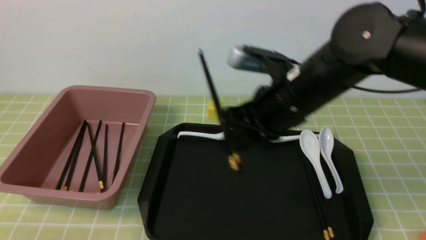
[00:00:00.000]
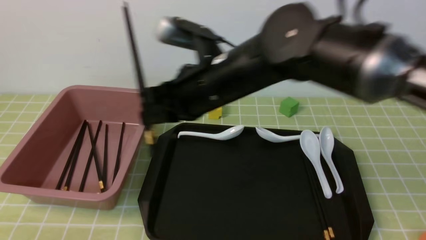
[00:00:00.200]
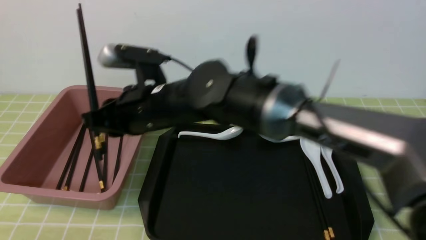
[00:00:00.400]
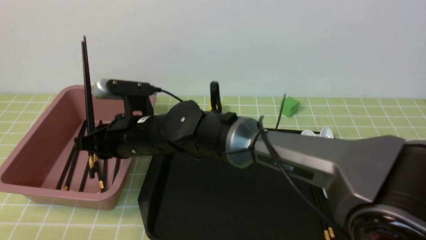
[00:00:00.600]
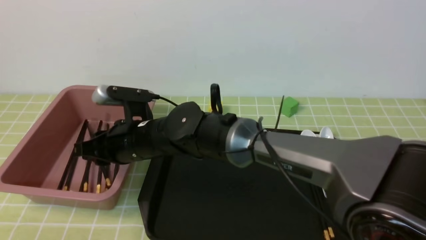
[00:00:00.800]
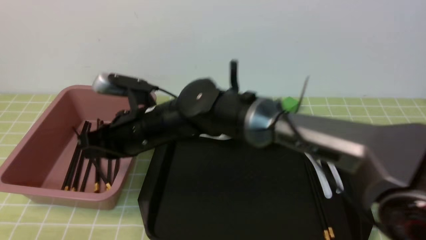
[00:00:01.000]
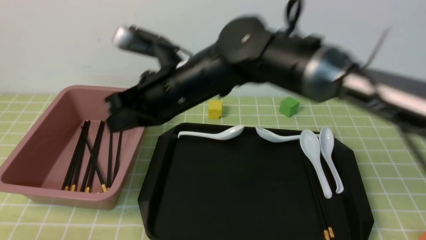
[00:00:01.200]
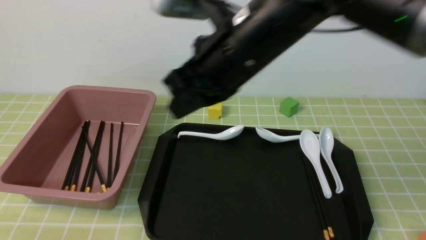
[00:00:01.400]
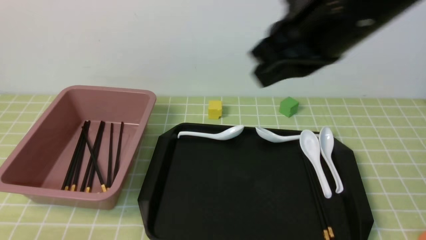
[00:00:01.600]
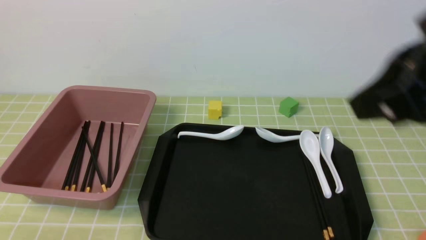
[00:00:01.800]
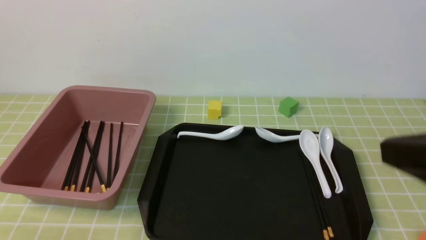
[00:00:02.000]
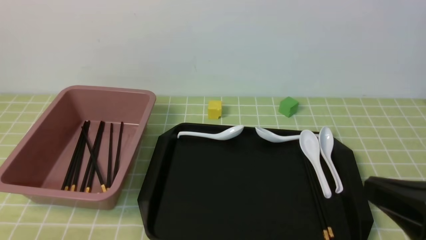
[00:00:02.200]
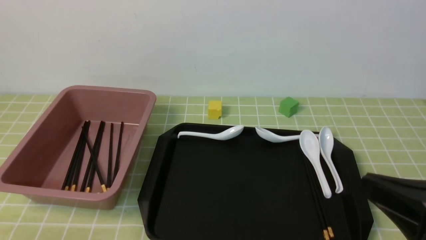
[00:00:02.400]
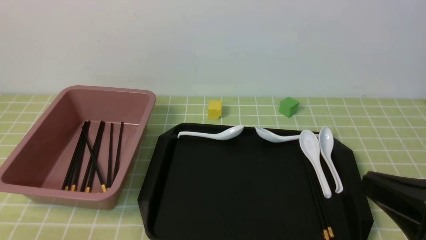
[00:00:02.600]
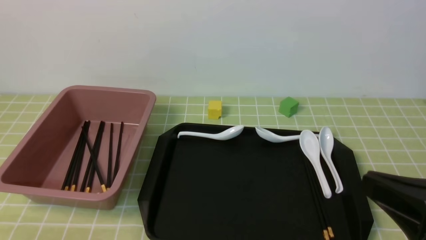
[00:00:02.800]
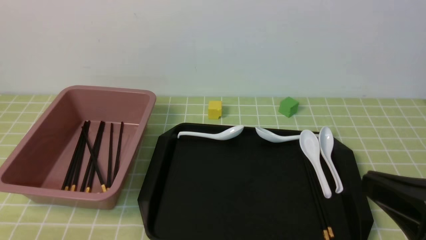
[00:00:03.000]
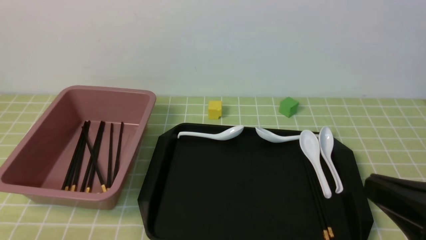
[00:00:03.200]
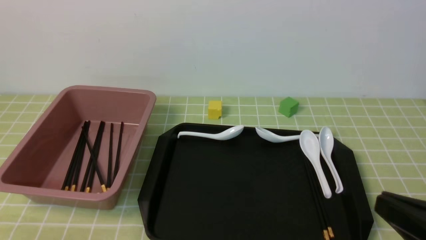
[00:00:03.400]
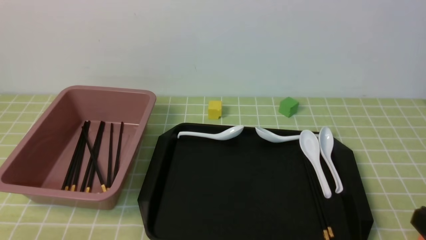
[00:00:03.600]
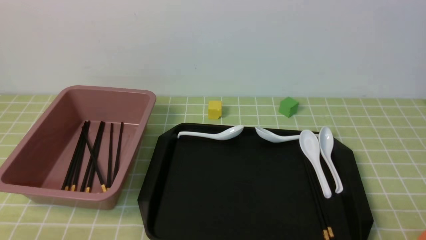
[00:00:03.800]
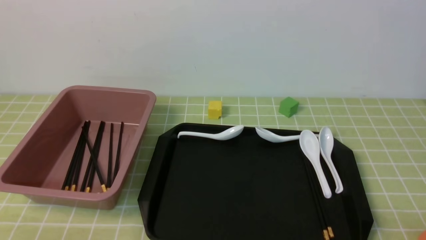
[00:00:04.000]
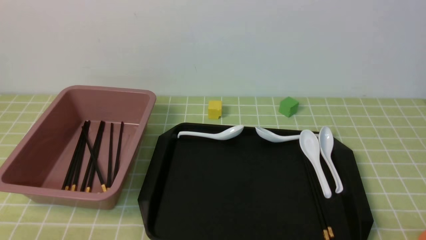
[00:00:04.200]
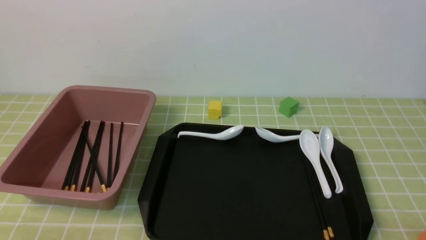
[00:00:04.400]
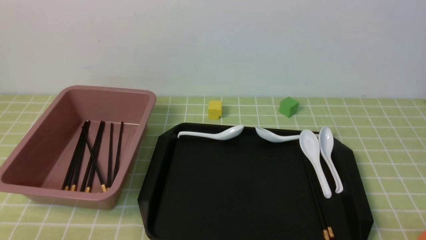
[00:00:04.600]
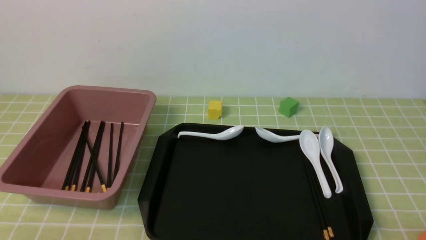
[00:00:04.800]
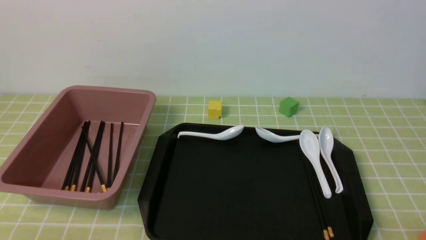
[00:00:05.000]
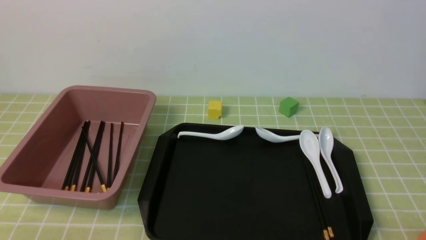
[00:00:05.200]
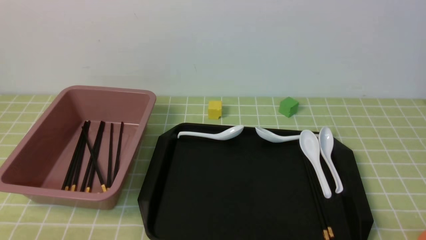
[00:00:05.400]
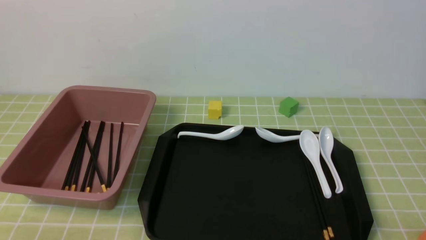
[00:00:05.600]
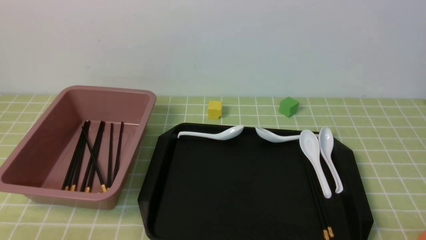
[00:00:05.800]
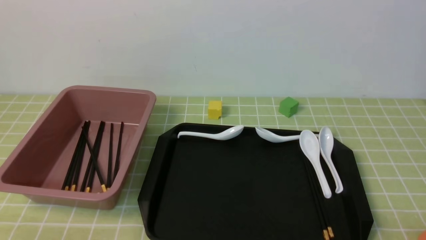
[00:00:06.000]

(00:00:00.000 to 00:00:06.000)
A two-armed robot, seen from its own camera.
Step, 00:00:00.000 - 00:00:01.000: use the right arm to put the chopsticks into the lunch box.
00:00:00.000 - 00:00:01.600: The right gripper moves upward and backward, about 15 cm, and closes its fingers.
00:00:01.600 - 00:00:03.000: The right gripper goes some 20 cm downward, backward and to the right.
00:00:03.000 - 00:00:04.400: The right gripper is displaced downward and to the right by roughly 15 cm.
00:00:04.400 - 00:00:06.000: Both grippers stay about where they are.
